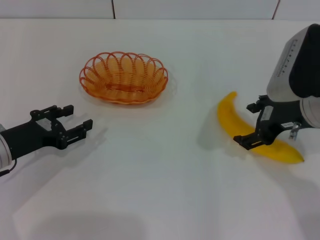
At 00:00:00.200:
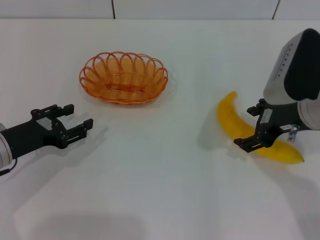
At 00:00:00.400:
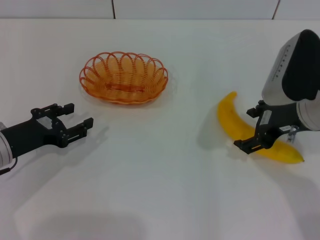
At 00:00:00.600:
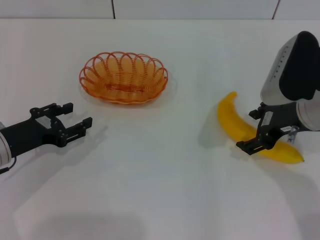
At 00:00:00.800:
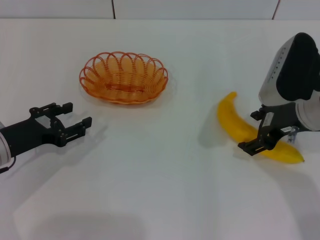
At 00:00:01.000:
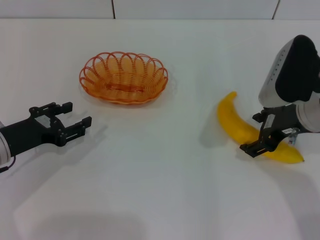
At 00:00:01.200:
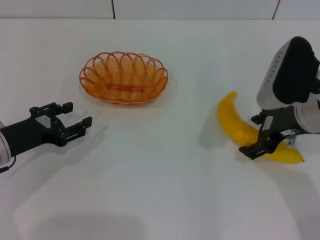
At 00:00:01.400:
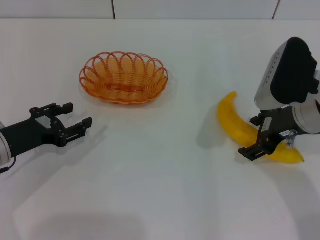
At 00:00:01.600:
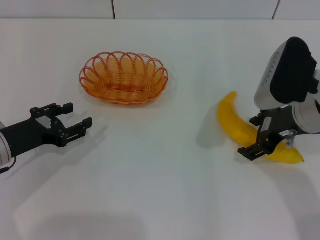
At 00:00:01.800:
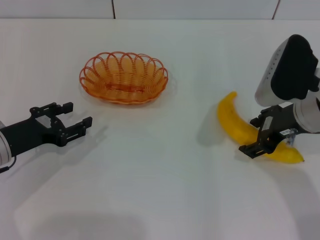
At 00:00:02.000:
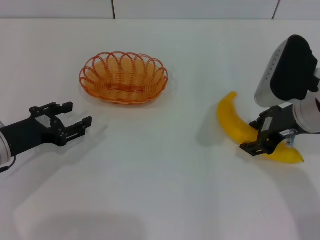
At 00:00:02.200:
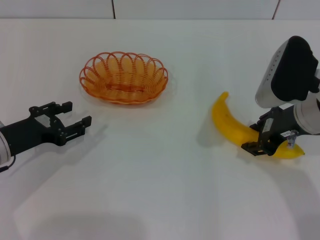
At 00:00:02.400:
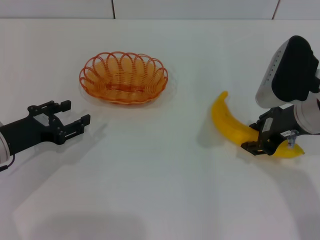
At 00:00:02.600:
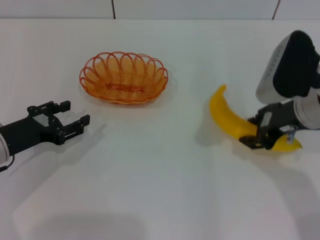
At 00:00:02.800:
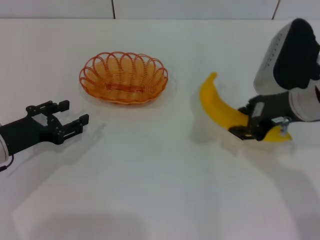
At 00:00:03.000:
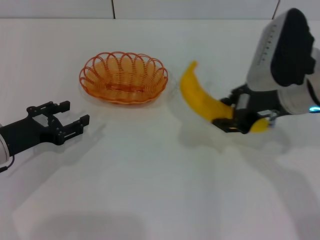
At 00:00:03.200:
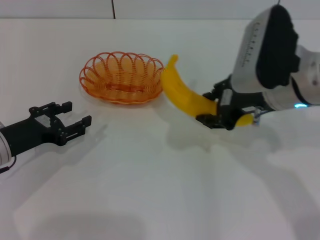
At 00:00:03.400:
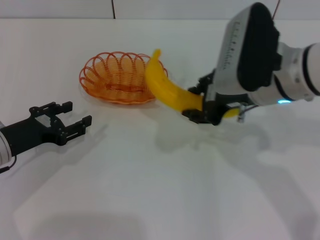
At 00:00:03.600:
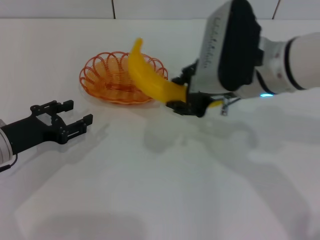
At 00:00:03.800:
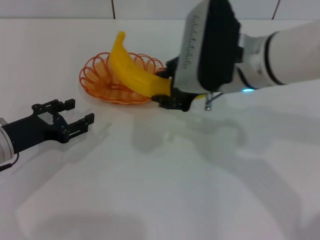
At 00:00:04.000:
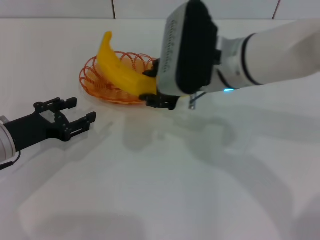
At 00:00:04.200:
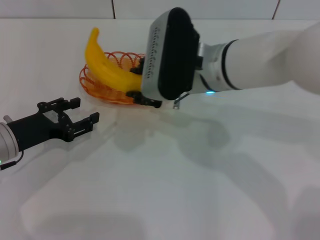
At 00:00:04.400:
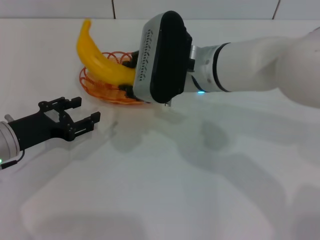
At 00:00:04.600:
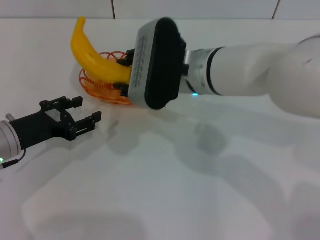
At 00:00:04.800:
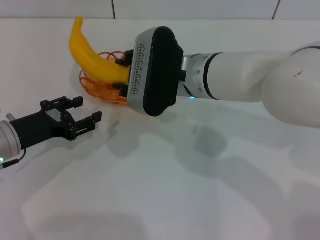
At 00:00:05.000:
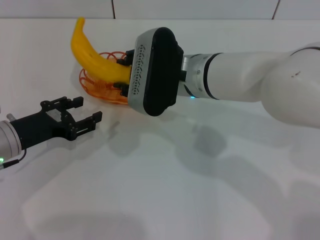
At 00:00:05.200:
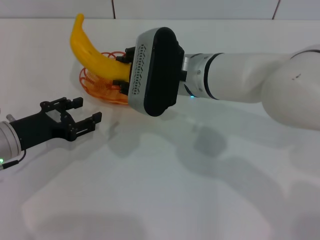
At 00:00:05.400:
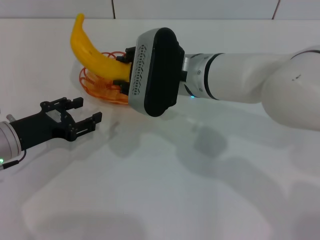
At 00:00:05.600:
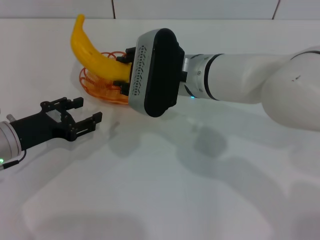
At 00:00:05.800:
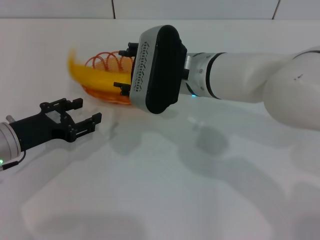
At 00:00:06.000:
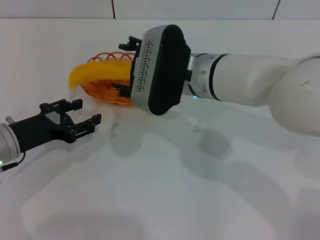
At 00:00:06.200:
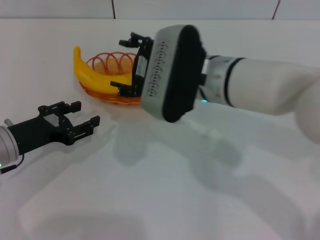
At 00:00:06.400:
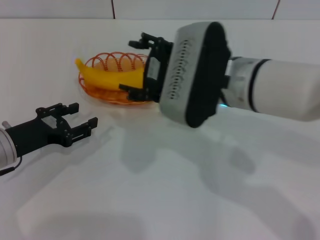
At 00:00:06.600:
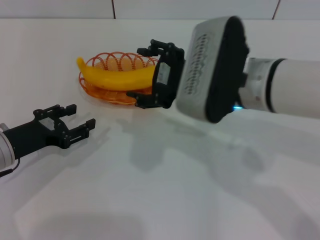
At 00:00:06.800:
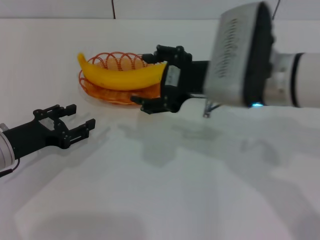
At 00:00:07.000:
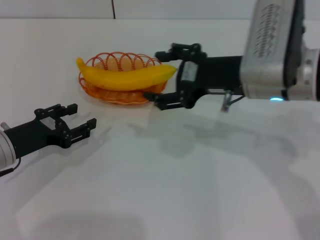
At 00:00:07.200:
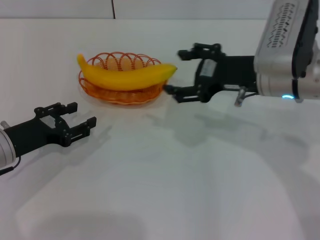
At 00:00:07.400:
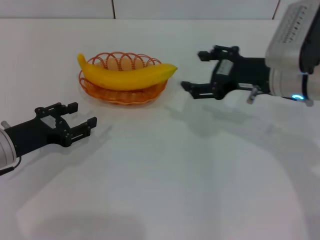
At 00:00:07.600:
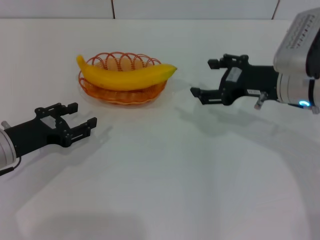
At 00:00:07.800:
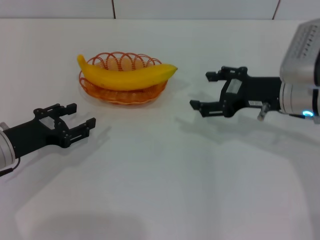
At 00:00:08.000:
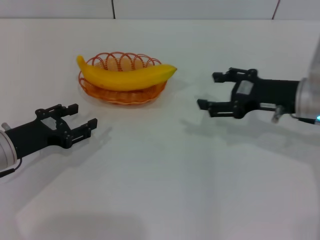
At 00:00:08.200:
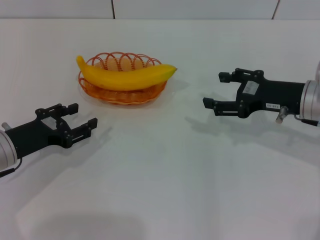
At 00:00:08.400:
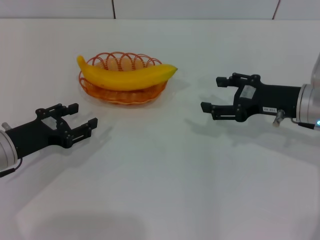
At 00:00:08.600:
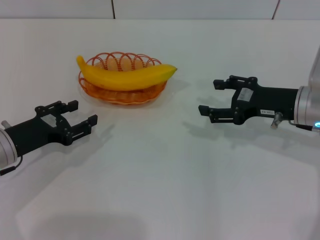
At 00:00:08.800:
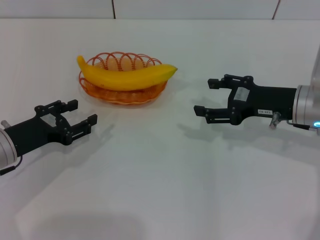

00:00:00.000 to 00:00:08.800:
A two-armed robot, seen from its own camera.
Step, 00:00:00.000 to 00:00:03.200: Pick up the banana with the right gripper.
Step, 00:00:03.600 to 00:00:06.400: Place the banana into the basket with the right gripper.
00:00:00.000 to 00:00:01.400: The grippers make only small movements.
00:00:01.400 to 00:00:03.000: The right gripper closes up.
00:00:03.000 to 00:00:04.400: The right gripper heads to the left, covering about 15 cm.
00:00:04.400 to 00:00:05.800: The grippers stay close to where they were, moving slightly.
00:00:05.800 to 00:00:07.400: The right gripper shifts some 15 cm to the right, and opens up.
00:00:07.400 to 00:00:08.800: The right gripper moves some 5 cm.
